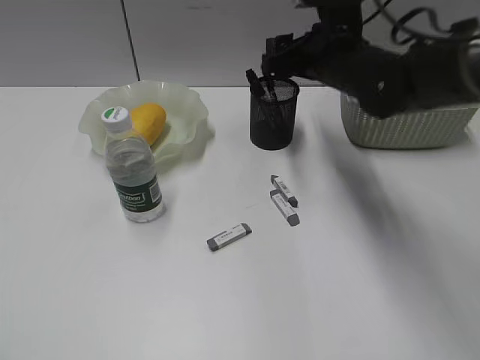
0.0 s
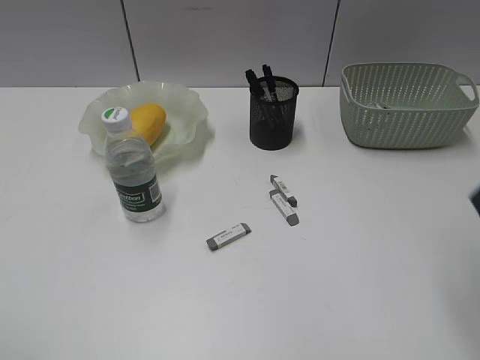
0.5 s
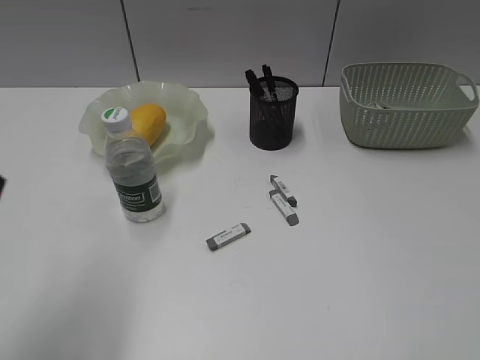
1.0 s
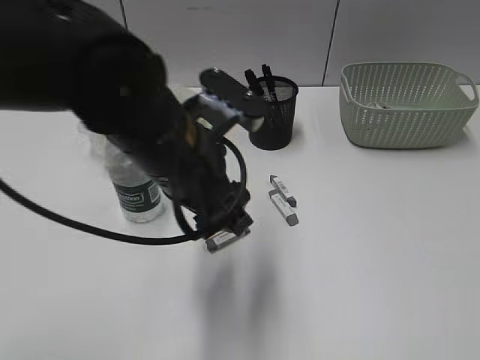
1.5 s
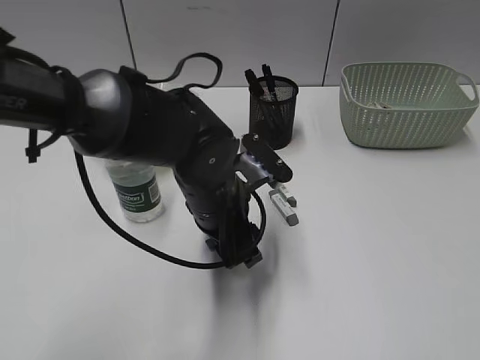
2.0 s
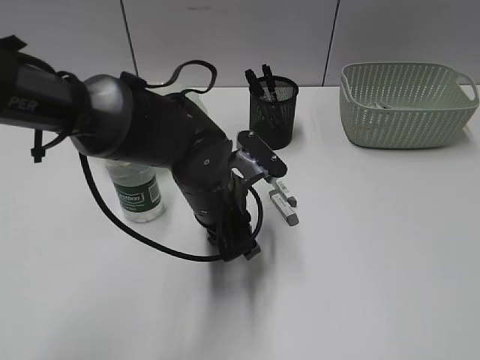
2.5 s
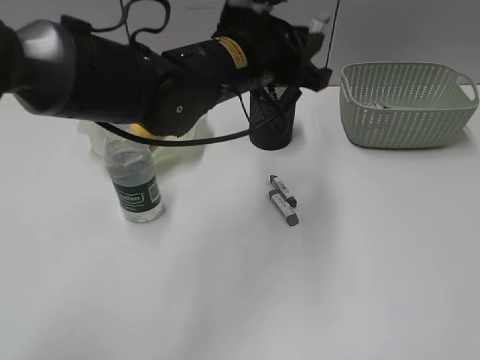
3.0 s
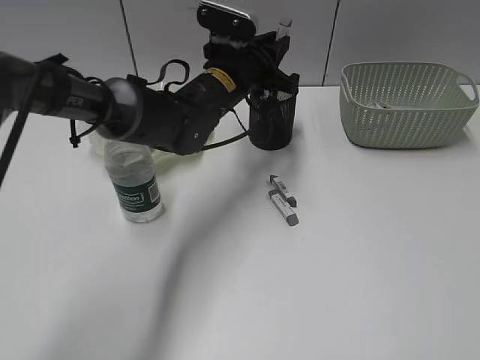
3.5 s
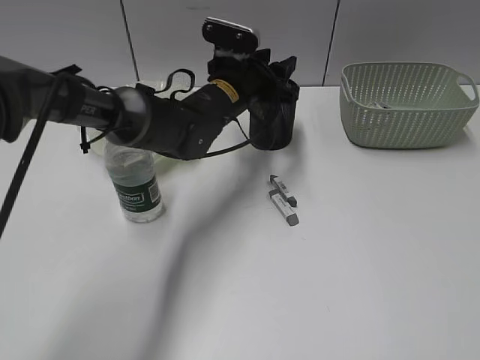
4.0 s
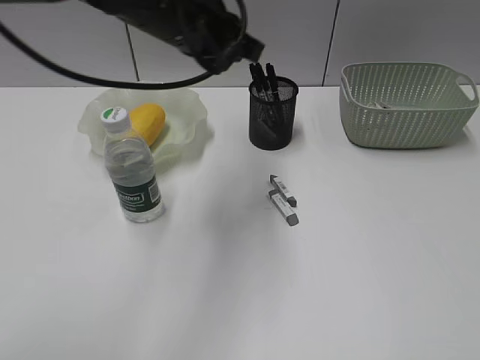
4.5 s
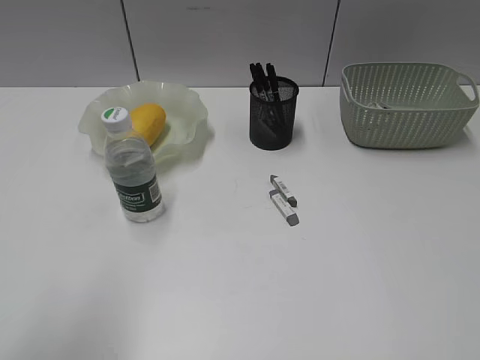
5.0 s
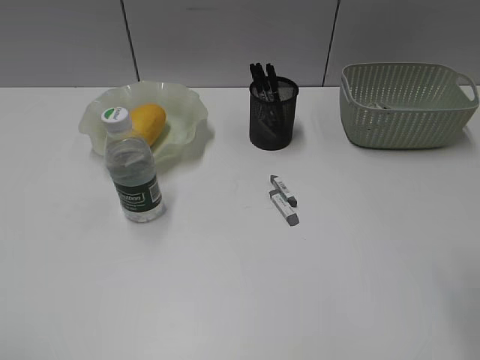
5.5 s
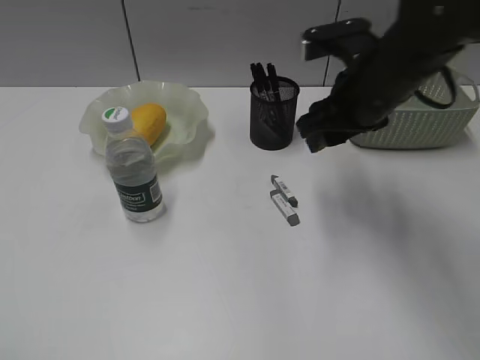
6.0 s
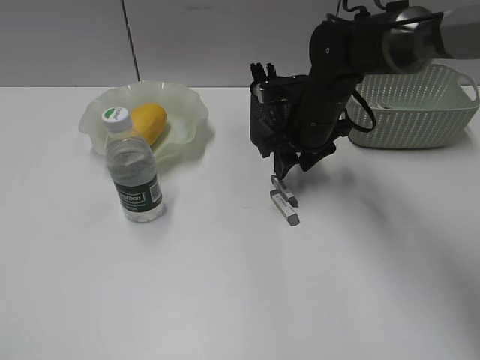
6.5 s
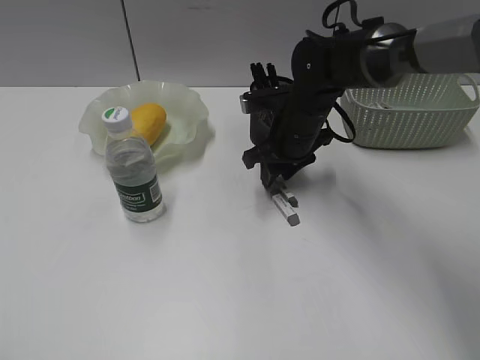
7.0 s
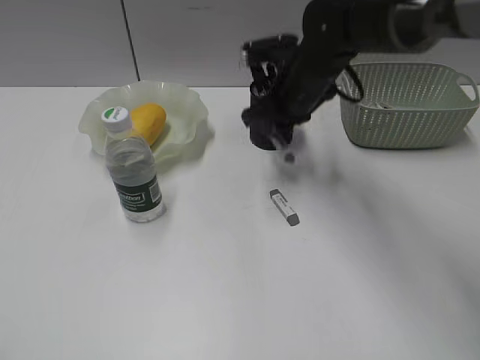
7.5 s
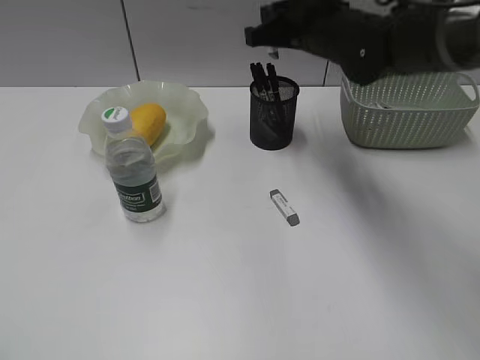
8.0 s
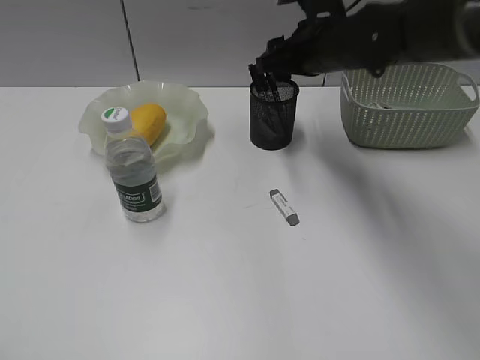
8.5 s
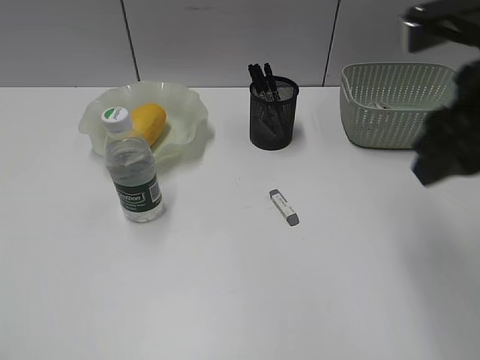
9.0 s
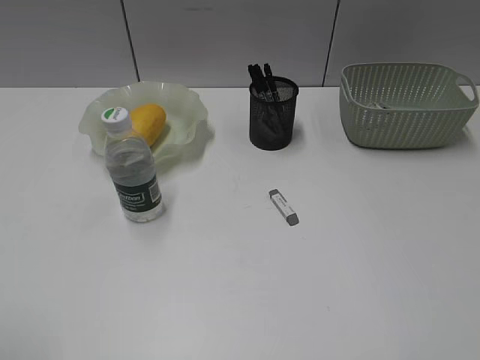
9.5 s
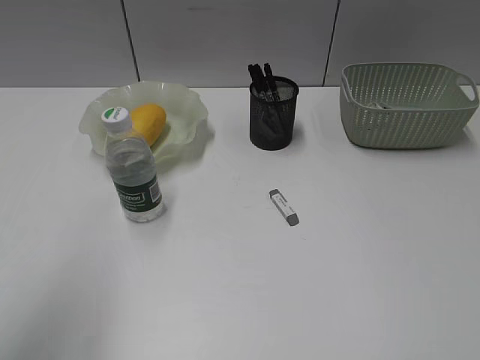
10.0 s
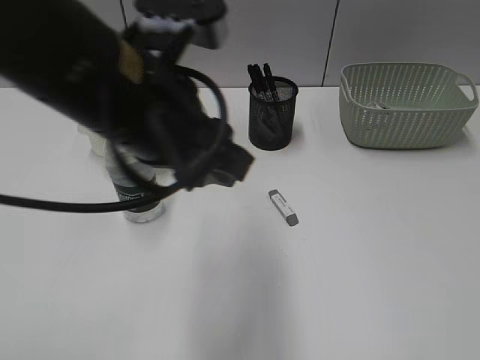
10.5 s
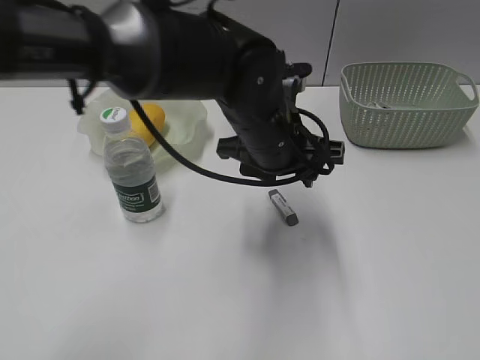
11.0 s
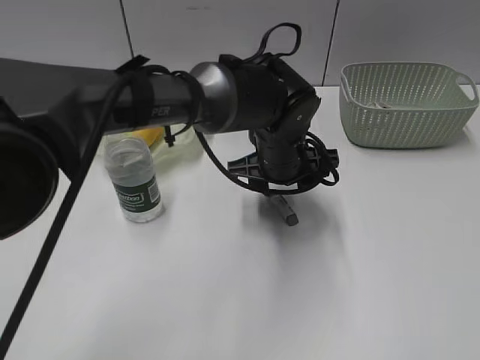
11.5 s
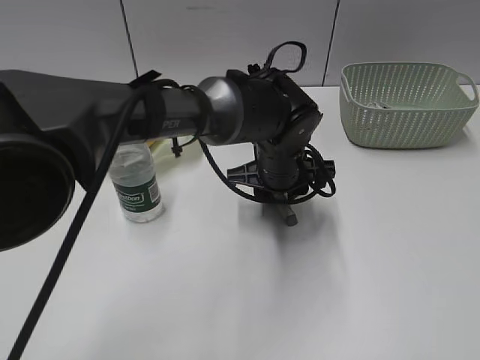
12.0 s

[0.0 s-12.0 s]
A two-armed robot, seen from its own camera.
Step, 0.5 to 2.0 s: Grasp the eraser with left gripper.
Step, 2.5 to 4.0 s: Place the eraser in pen holder with left gripper.
Step, 4.5 to 7.0 s: Grasp the eraser with right gripper.
Step, 7.5 to 8.5 s: Place the eraser in pen holder with right gripper.
0.0 to 2.0 s: The left gripper goes some 50 cm to the right, forward and downward, and opens up. Meanwhile the right gripper moves backward and to the right, some 40 cm, and closes up.
2.0 to 4.0 s: The left gripper is displaced forward by some 15 cm, and closes, then reopens.
4.0 to 6.0 s: The right gripper shifts approximately 40 cm forward and to the left. The left gripper shifts about 50 cm backward and to the left.
6.0 to 8.0 s: The right gripper travels forward by approximately 10 cm, reaches about 10 cm downward, then returns, and closes up.
8.0 to 10.0 s: The right gripper shifts about 50 cm backward and to the right, and opens up. The left gripper heads forward and to the right, covering roughly 15 cm.
10.0 to 12.0 s: The left gripper shifts approximately 50 cm to the right, downward and forward.

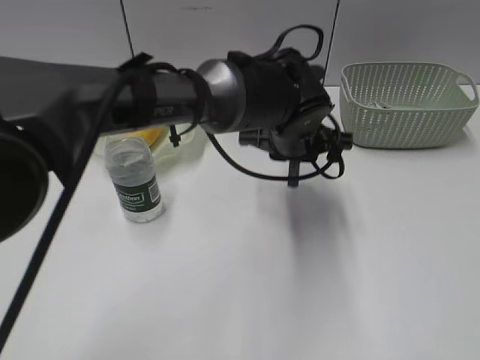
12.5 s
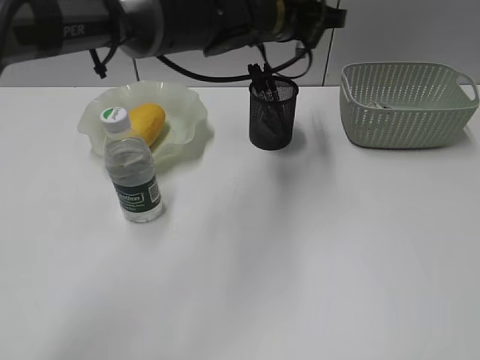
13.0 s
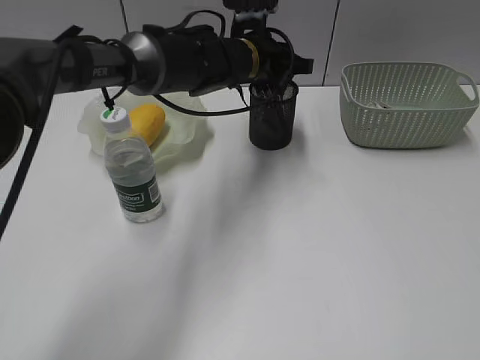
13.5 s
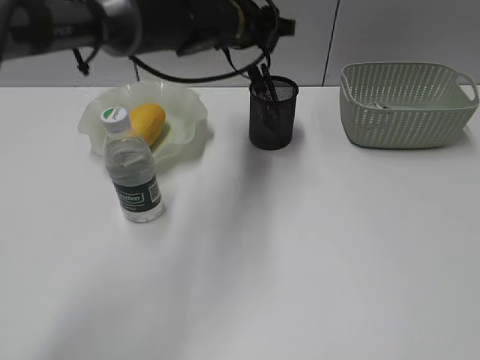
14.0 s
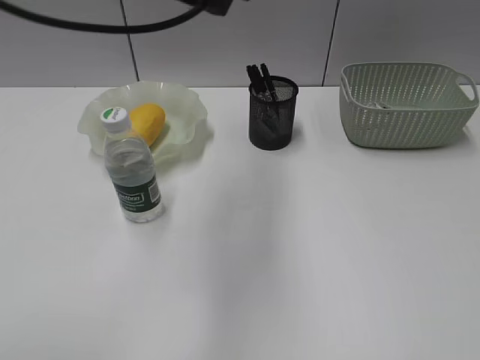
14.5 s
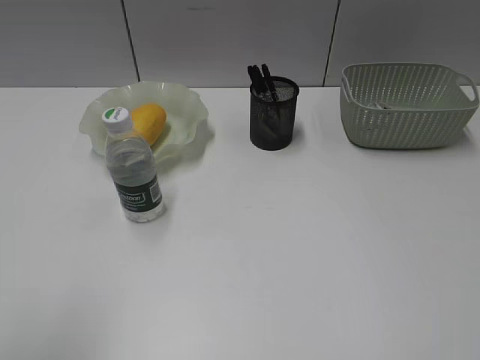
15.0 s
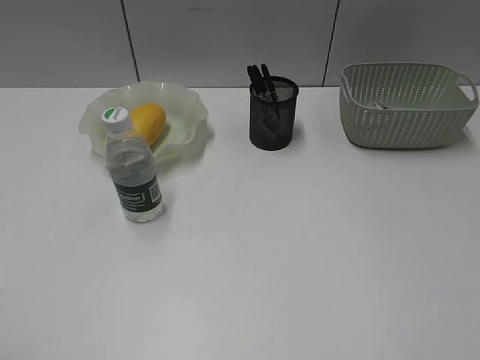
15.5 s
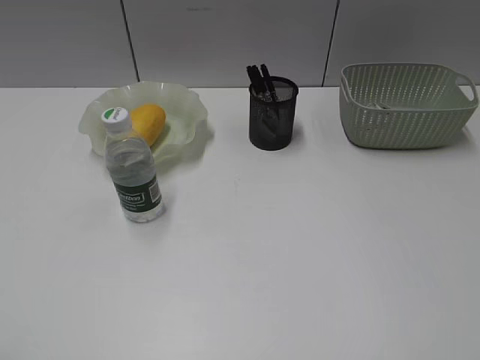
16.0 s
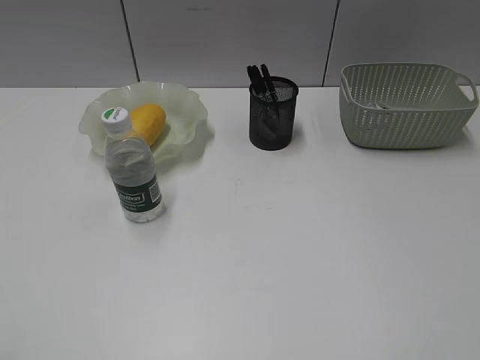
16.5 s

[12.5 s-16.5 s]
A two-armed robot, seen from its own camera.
Step, 12.5 to 13.5 s: Place the eraser in pen holder with left gripper.
12.5 to 14.5 s: The left gripper goes up and down, some 20 cm each way, reversing 2 times, and opens and closes again.
14.5 to 16.5 s: The left gripper shifts some 40 cm backward and to the left, and opens.

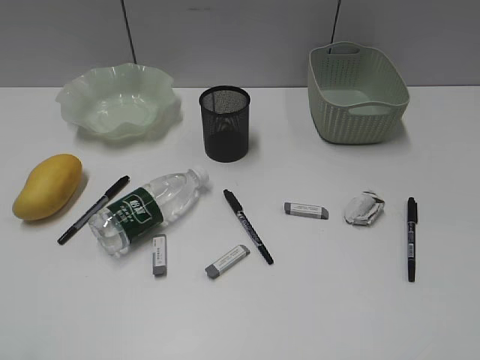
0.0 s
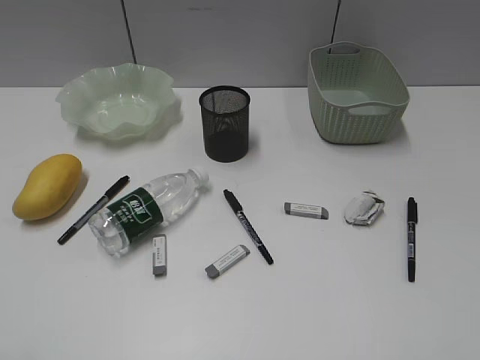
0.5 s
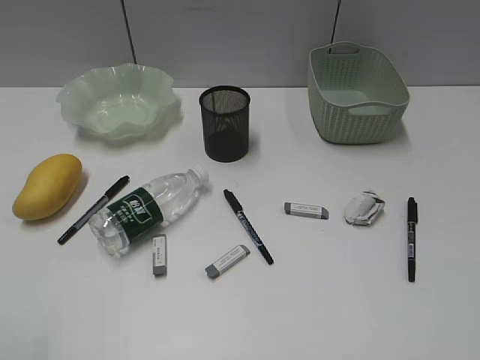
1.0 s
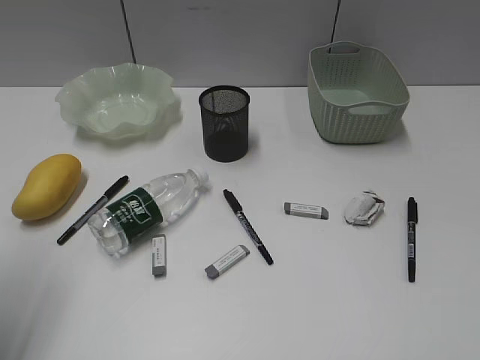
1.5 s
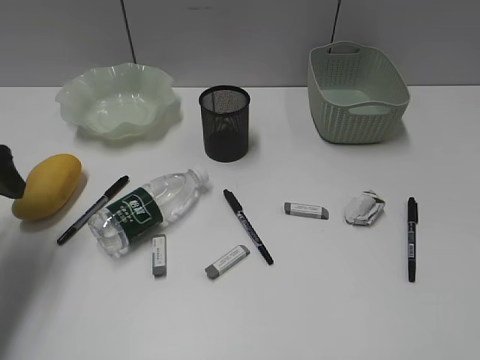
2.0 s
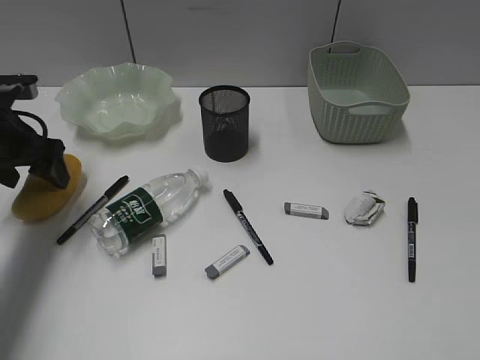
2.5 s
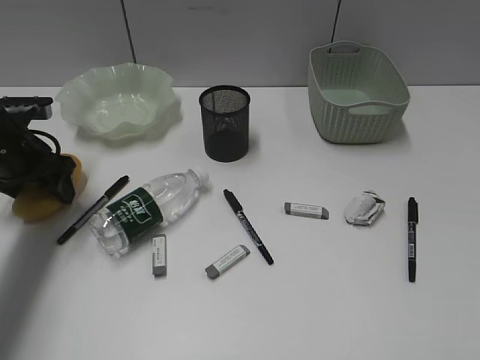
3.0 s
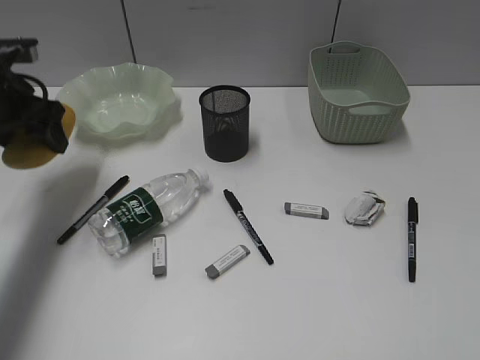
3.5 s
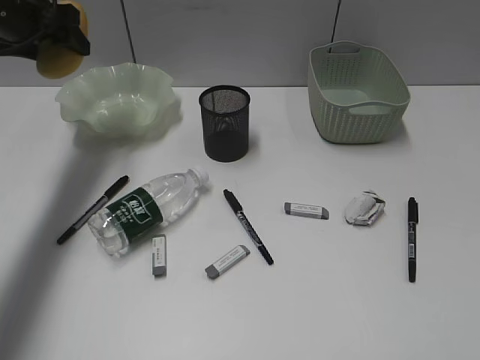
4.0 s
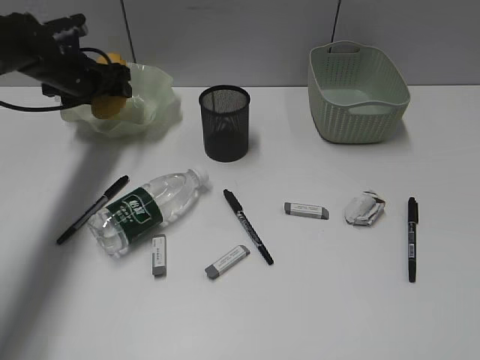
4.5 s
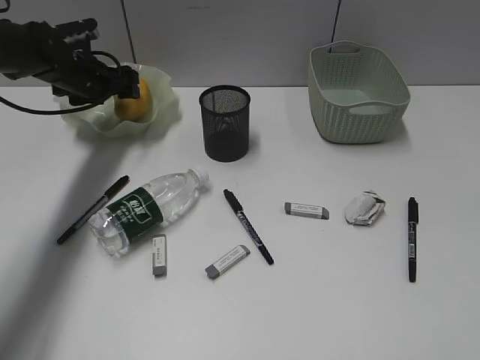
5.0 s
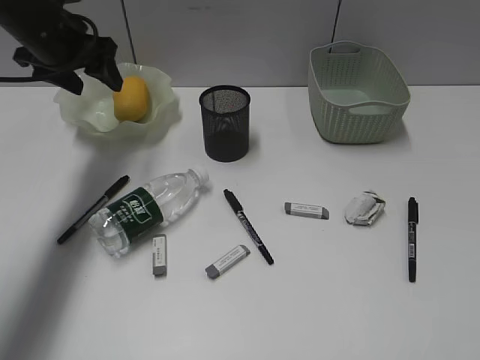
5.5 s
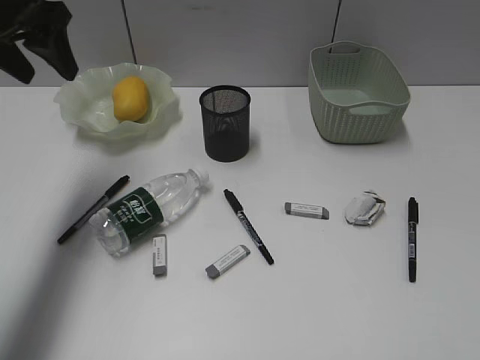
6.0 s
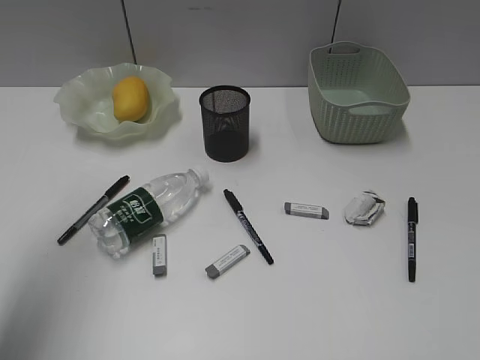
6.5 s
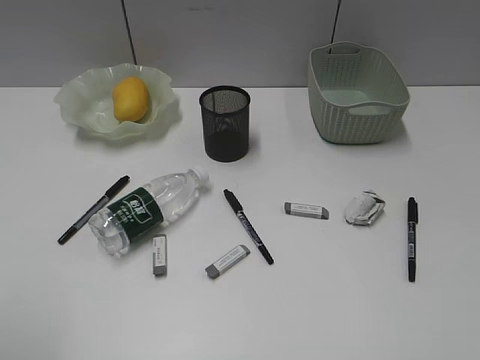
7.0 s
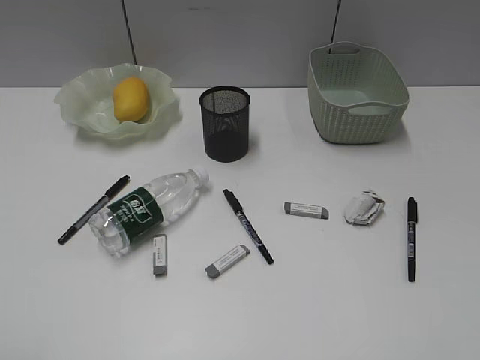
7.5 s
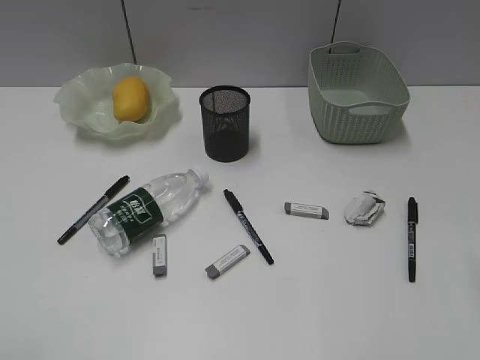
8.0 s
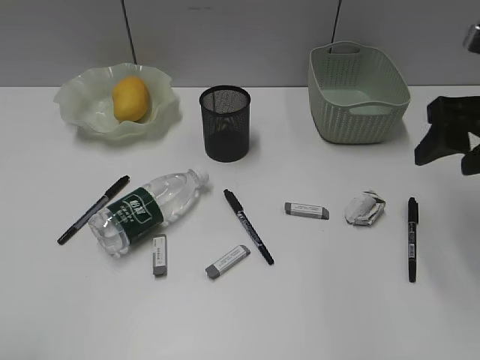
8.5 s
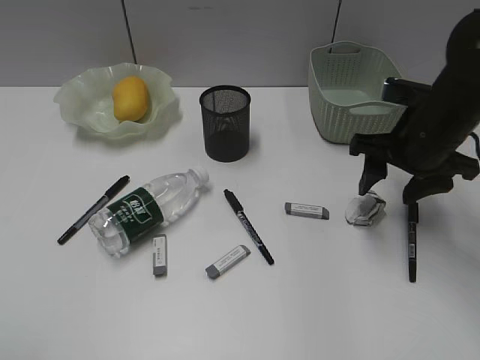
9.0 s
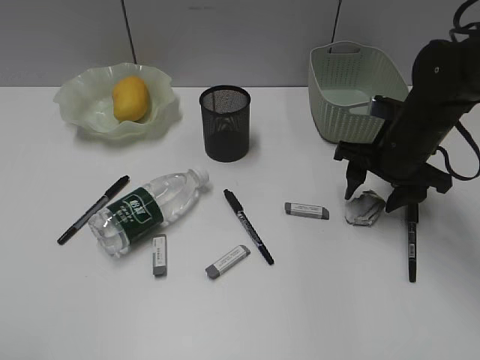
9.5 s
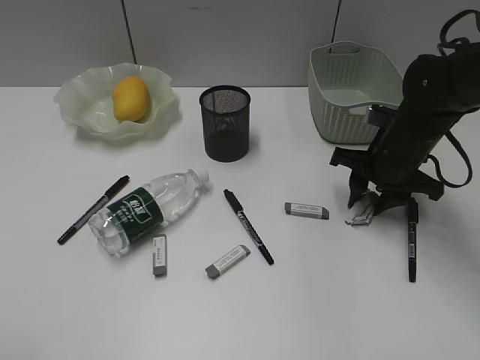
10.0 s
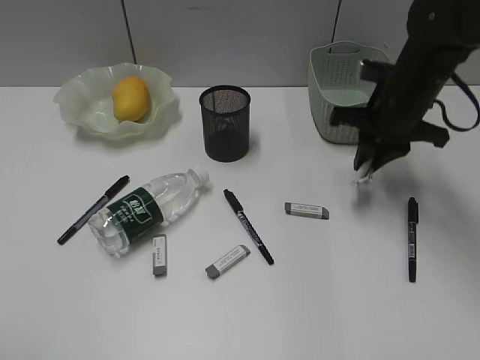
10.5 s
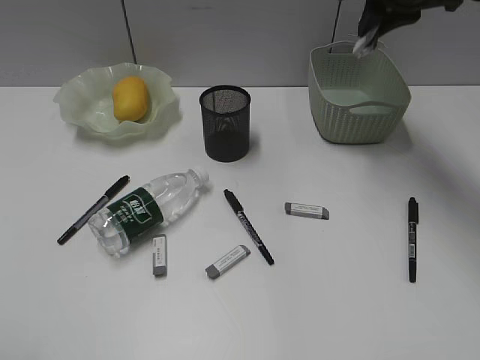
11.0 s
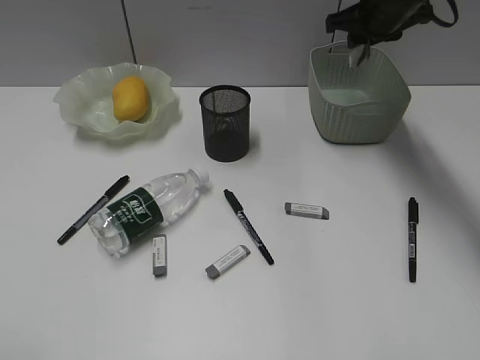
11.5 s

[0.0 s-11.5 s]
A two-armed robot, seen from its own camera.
Step, 1.0 to 3.0 s: Grasp the mango with left gripper.
Step, 3.5 to 5.0 s: Place the mango in the plate with left gripper.
Step, 5.5 to 10.0 s: Grasp the waste paper with right gripper.
2.0 to 4.0 s: The left gripper travels forward by about 15 cm.
4.0 to 6.0 s: The left gripper travels backward by about 5 cm, and travels downward and back again, about 15 cm each way.
6.0 to 7.5 s: The left gripper is displaced backward by about 40 cm.
7.5 to 9.5 s: The right gripper heads forward and downward, covering about 40 cm.
9.5 to 11.5 s: The right gripper heads forward and upward, covering some 20 cm, and closes its fingers.
